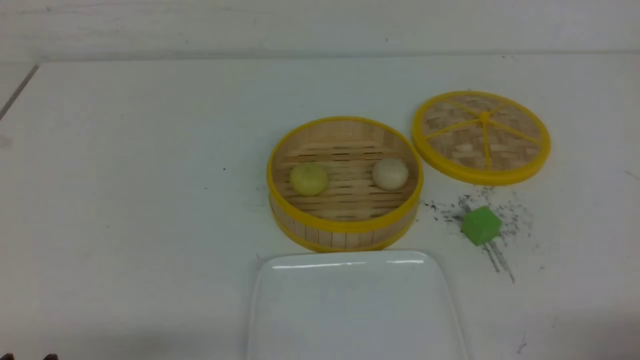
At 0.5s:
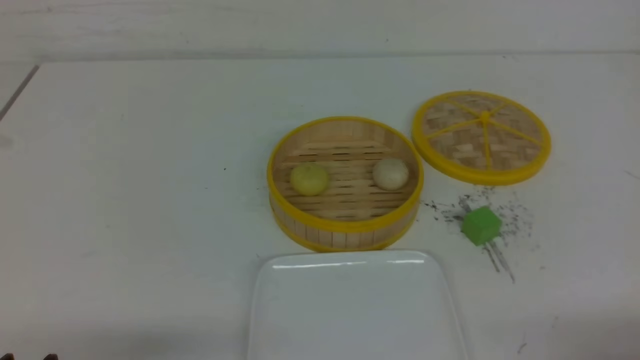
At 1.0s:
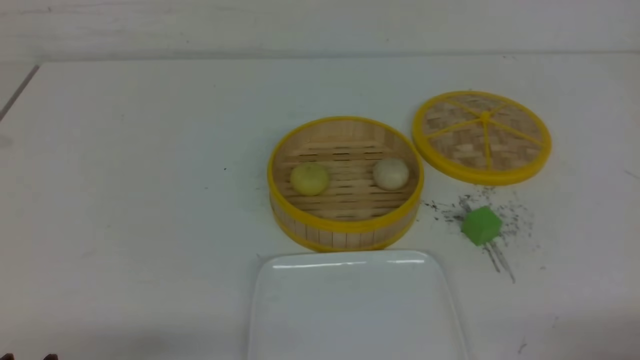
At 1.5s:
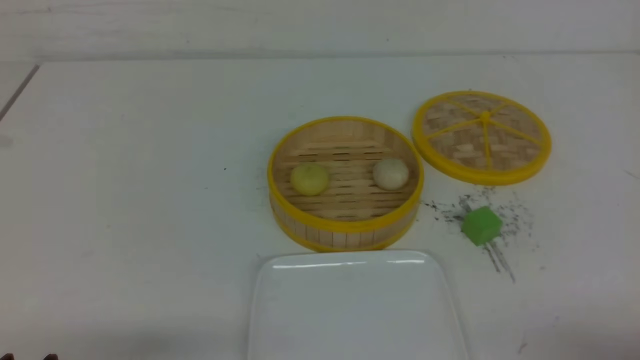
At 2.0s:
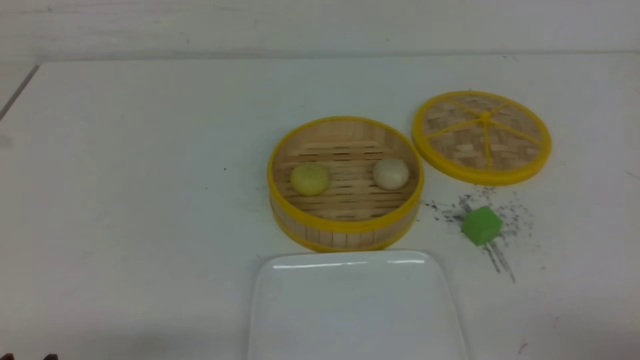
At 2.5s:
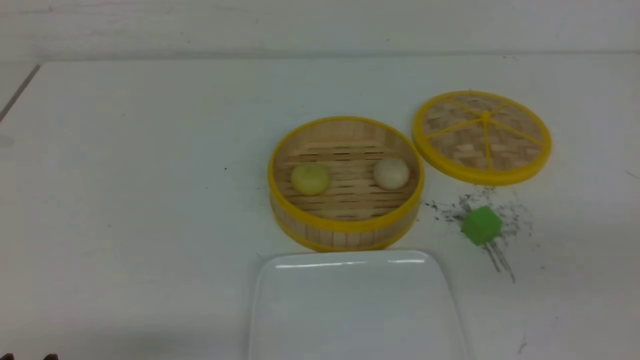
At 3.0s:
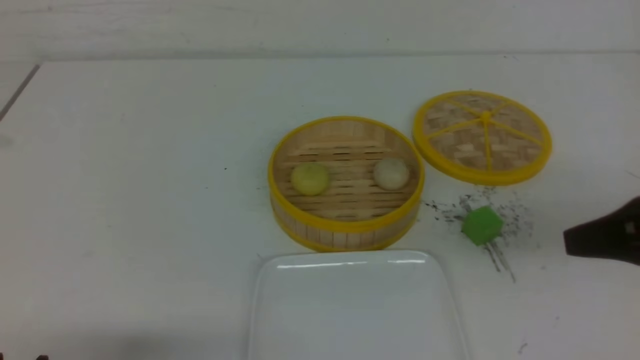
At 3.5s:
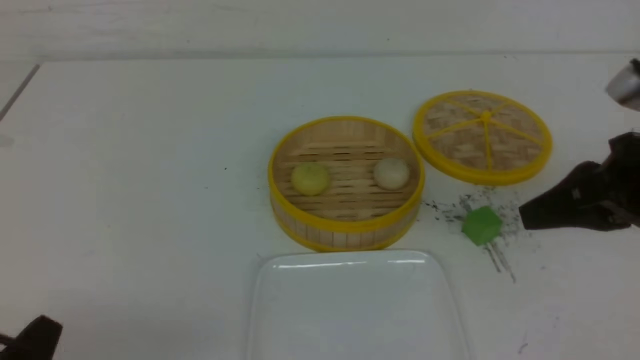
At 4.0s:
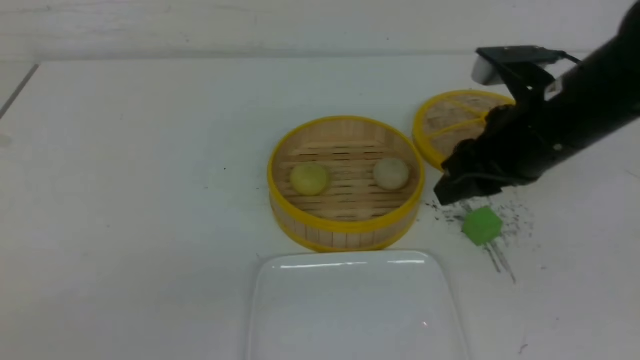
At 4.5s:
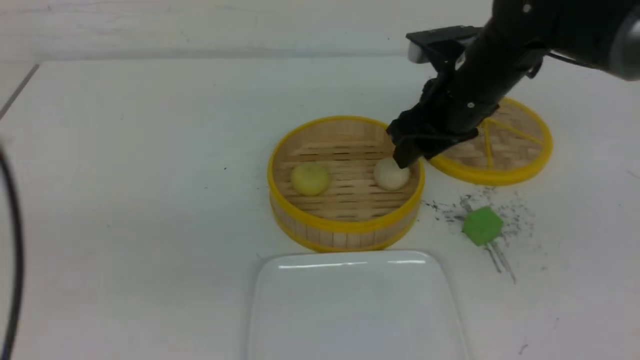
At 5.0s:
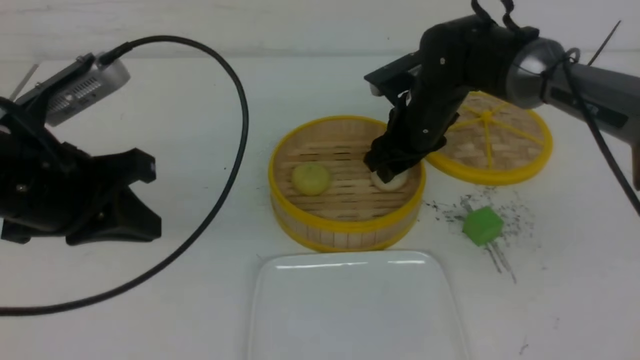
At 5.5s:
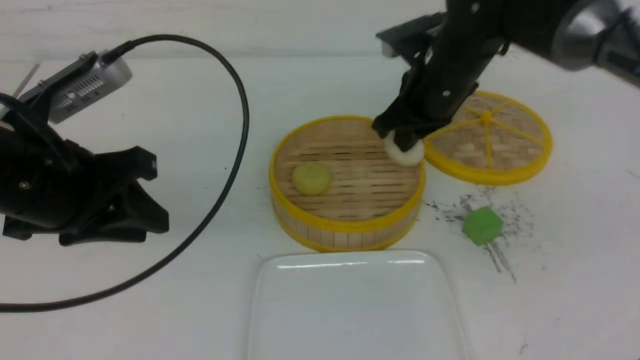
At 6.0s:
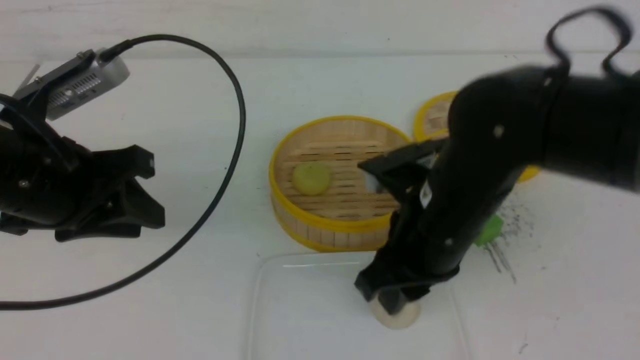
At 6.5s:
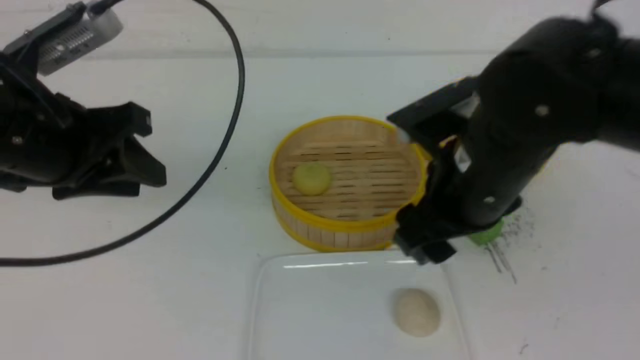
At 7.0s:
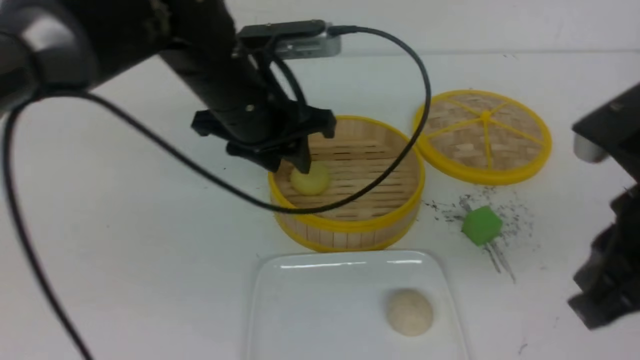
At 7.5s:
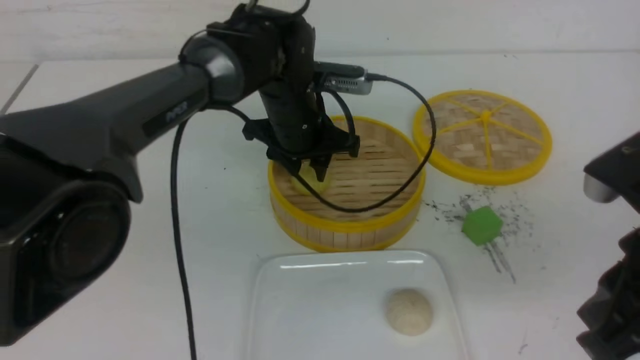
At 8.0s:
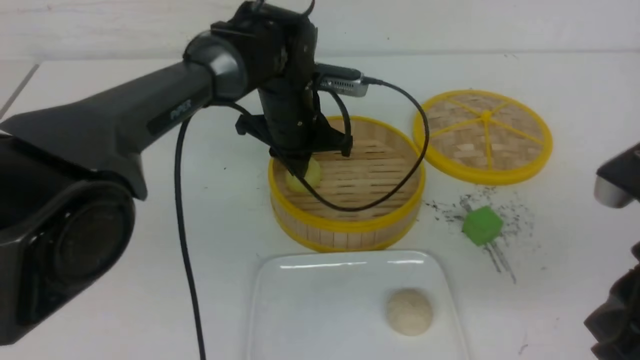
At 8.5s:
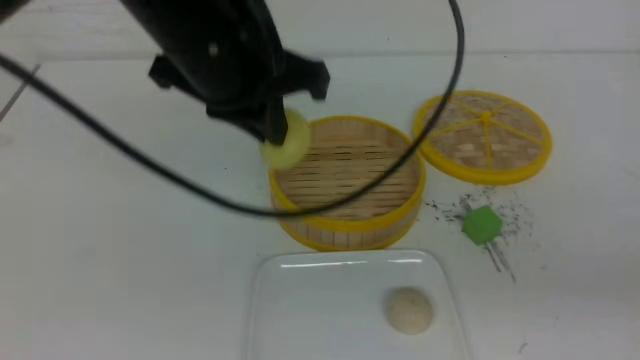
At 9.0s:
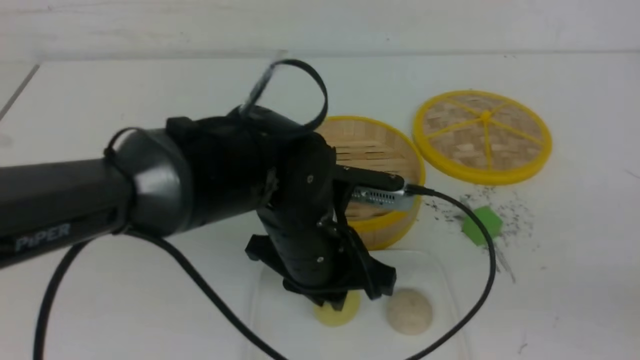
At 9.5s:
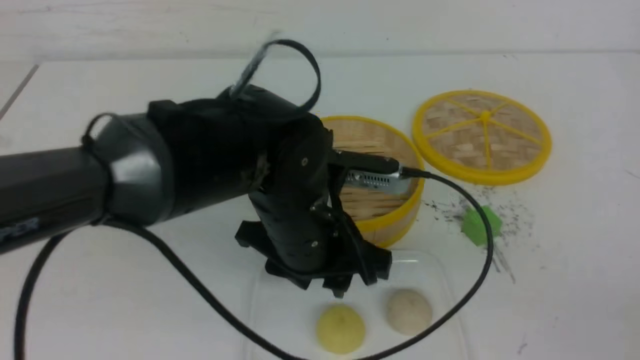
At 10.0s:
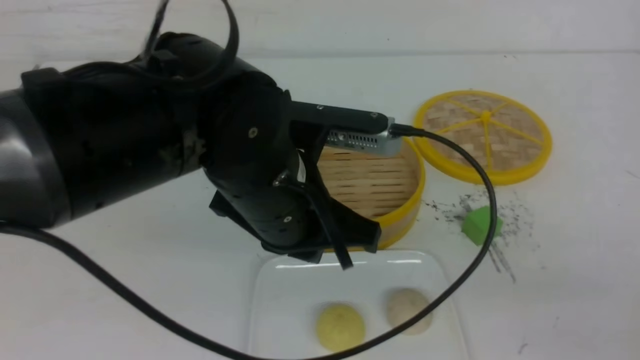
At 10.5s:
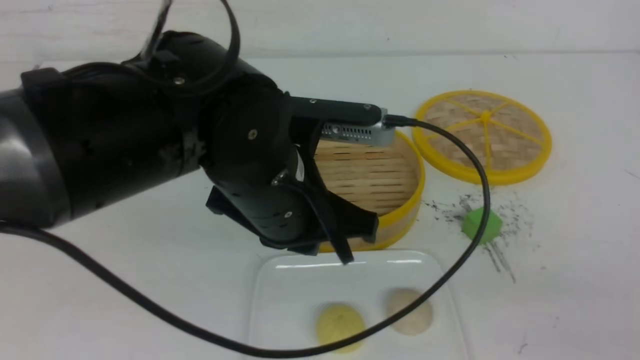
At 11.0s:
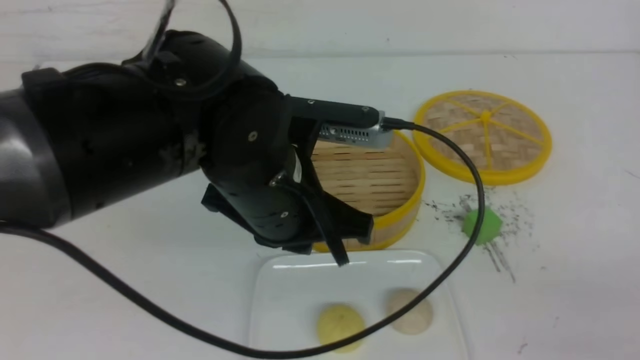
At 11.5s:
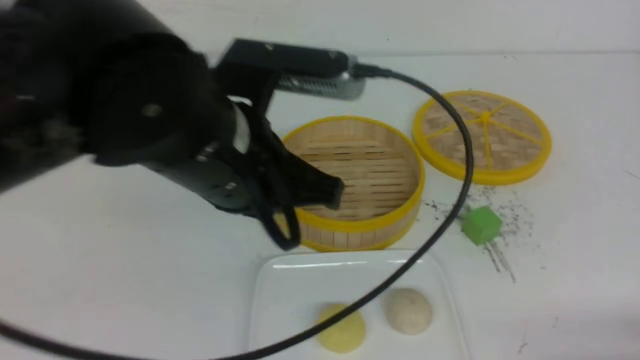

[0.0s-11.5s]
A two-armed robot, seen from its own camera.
Step, 0.0s to 5.0s: use the right arm to grab the steamed stuffed bun that is closest to it.
Step, 5.5s to 6.0s: use the right arm to put the steamed stuffed bun into the plate.
Step, 6.5s to 7.5s: use the left arm to grab the steamed stuffed bun that is closest to it.
Step, 8.0s to 9.0s: use the left arm to put the steamed stuffed bun into the plate.
2.0s to 4.0s: The right gripper shifts some 30 cm forward, to the left and upward, and closes, then reopens.
4.0s to 6.0s: The left gripper shifts approximately 20 cm forward, and closes, then reopens. Meanwhile the right gripper travels to the left and downward by roughly 10 cm, moves approximately 15 cm forward and comes back, and closes and opens again.
6.0s to 7.5s: The left gripper moves to the right, forward and downward, roughly 30 cm. The right gripper travels backward, to the right and upward by about 20 cm, and closes up.
7.5s to 9.5s: The left gripper heads backward, covering about 20 cm, and closes, then reopens; the right gripper heads backward and to the right, covering roughly 20 cm.
9.5s to 11.5s: The left gripper moves upward and to the left, about 10 cm, and closes up; the right gripper shifts approximately 15 cm downward.

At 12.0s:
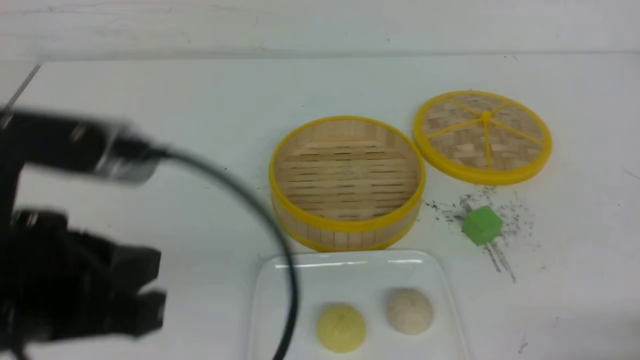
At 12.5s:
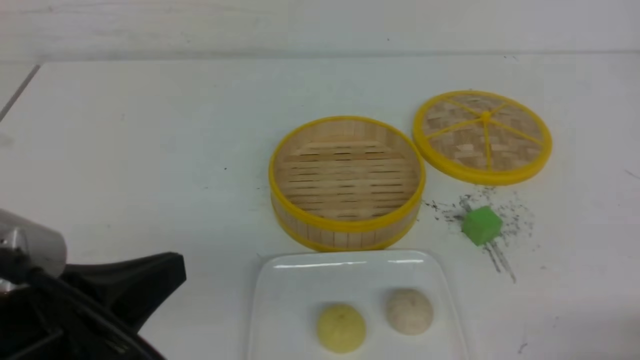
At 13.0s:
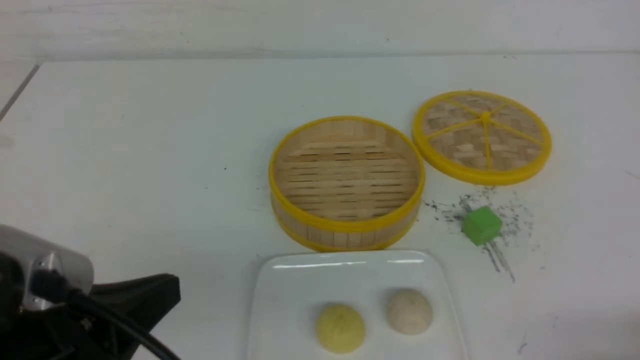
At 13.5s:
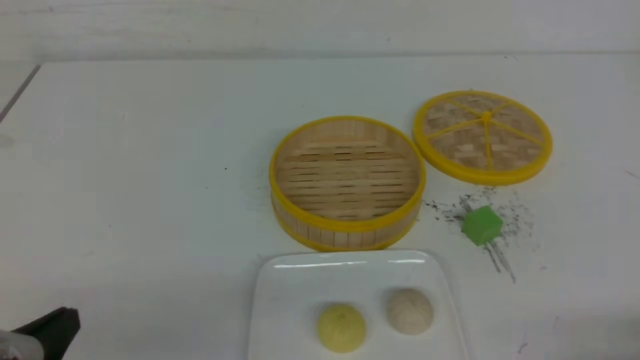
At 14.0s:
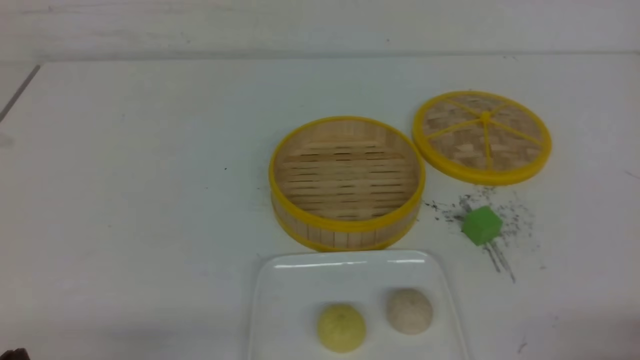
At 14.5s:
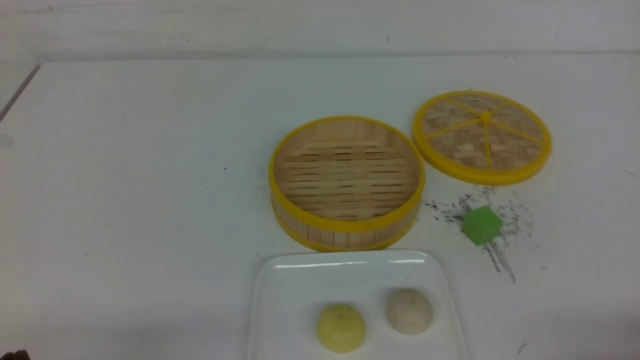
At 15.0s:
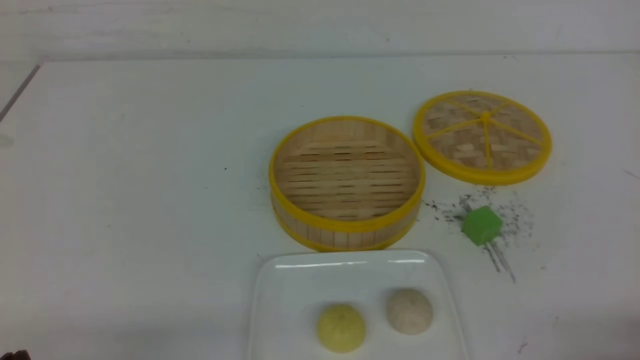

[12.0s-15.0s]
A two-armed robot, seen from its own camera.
12.0s to 13.5s: The left gripper shifts about 15 cm downward and to the left.
13.5s to 15.0s: The left gripper shifts by approximately 5 cm.
